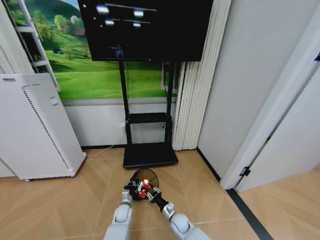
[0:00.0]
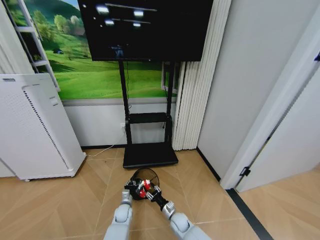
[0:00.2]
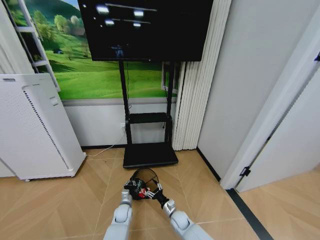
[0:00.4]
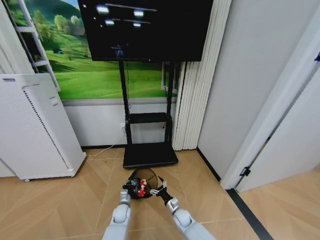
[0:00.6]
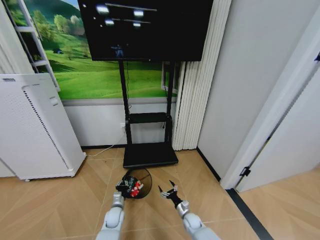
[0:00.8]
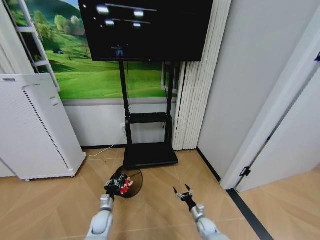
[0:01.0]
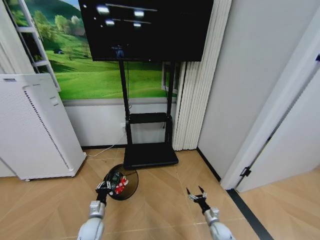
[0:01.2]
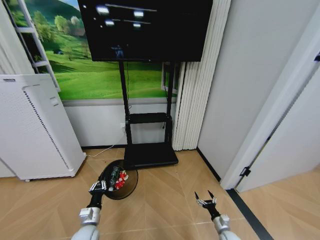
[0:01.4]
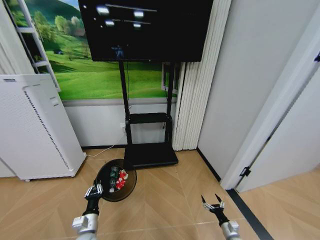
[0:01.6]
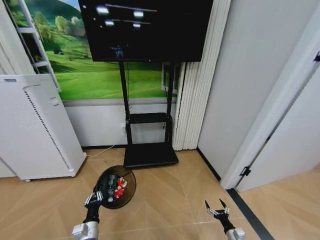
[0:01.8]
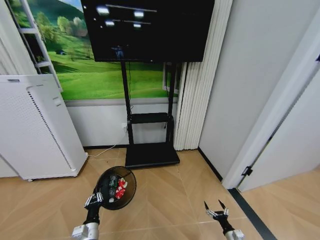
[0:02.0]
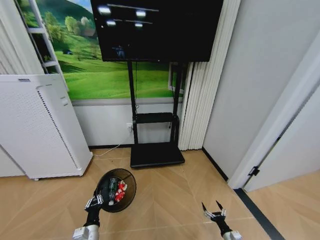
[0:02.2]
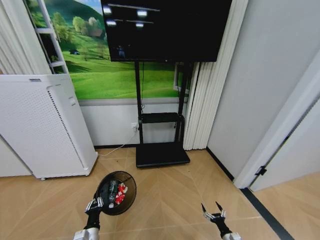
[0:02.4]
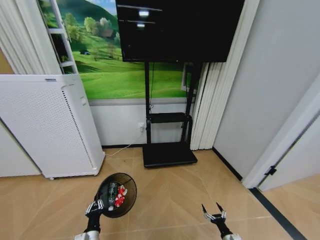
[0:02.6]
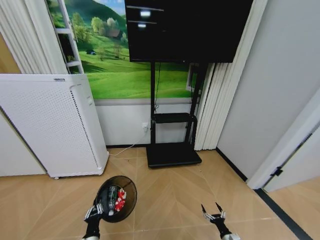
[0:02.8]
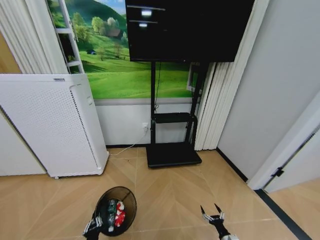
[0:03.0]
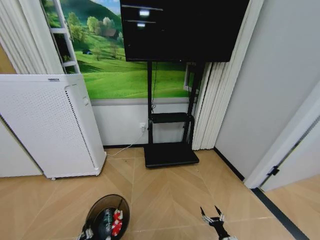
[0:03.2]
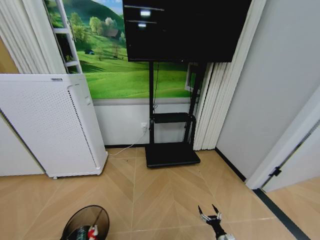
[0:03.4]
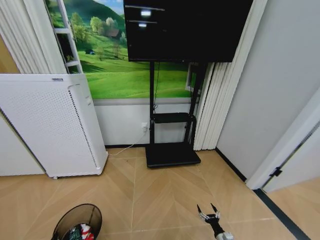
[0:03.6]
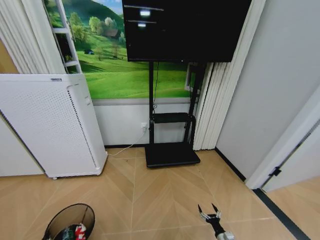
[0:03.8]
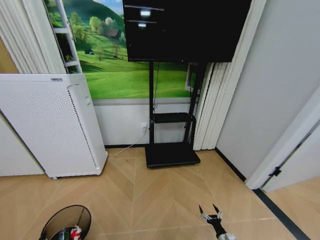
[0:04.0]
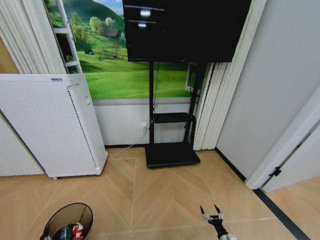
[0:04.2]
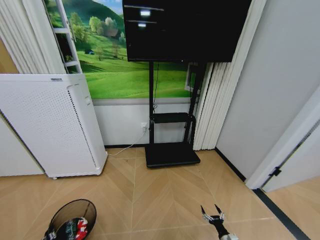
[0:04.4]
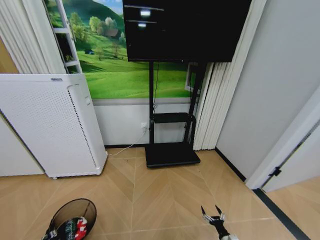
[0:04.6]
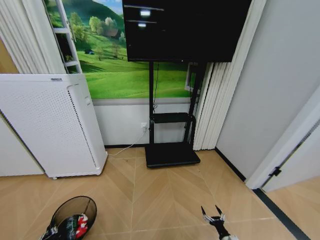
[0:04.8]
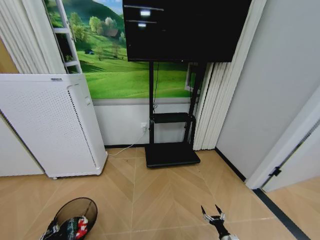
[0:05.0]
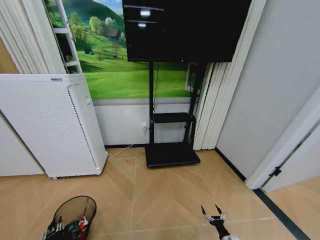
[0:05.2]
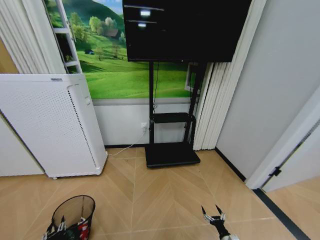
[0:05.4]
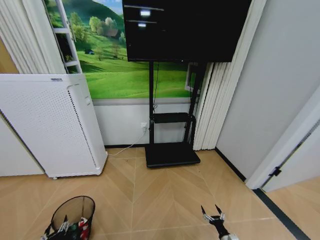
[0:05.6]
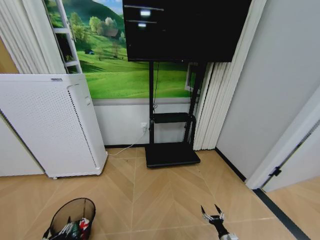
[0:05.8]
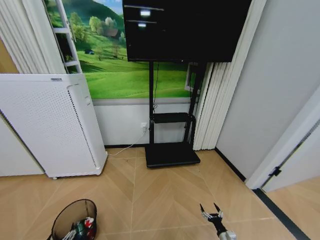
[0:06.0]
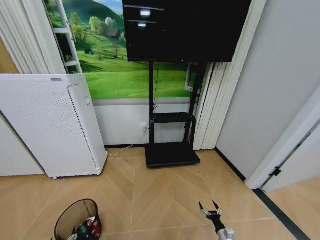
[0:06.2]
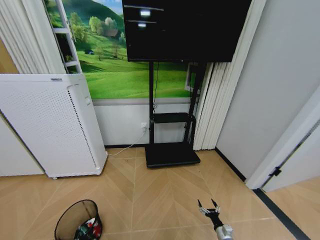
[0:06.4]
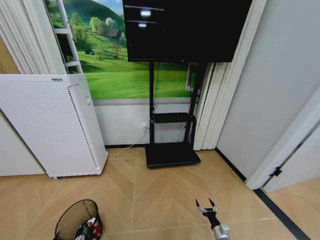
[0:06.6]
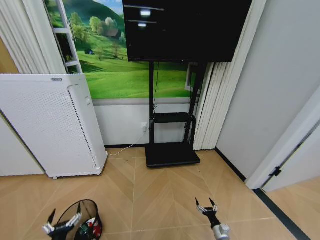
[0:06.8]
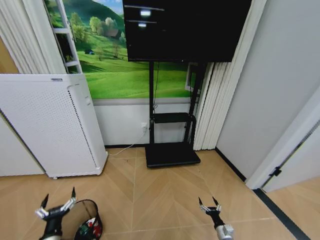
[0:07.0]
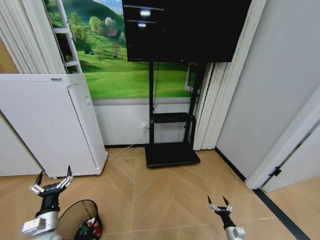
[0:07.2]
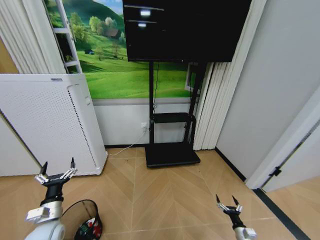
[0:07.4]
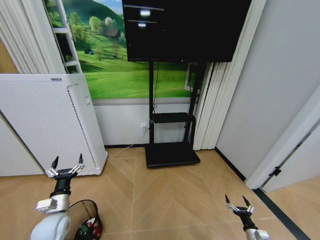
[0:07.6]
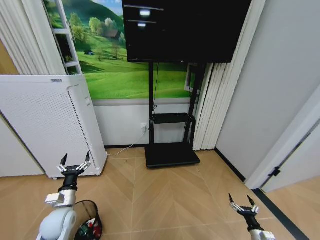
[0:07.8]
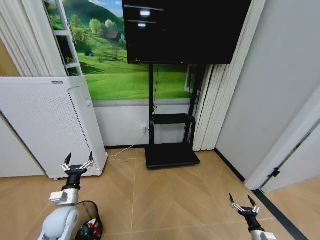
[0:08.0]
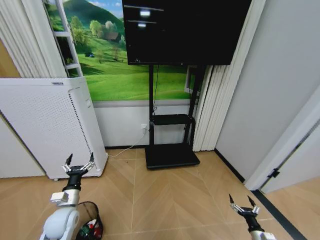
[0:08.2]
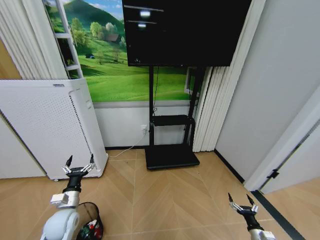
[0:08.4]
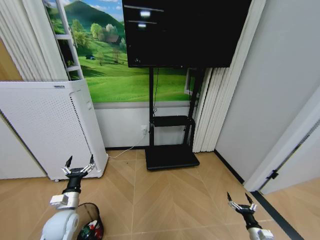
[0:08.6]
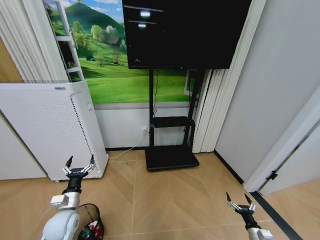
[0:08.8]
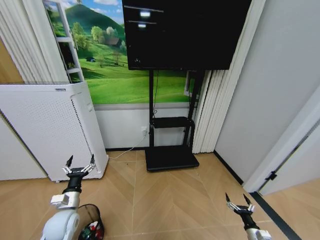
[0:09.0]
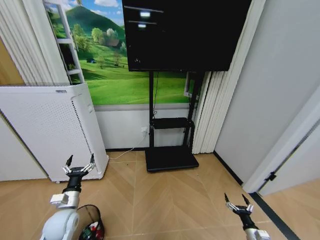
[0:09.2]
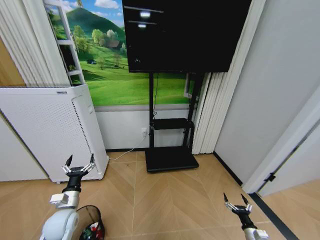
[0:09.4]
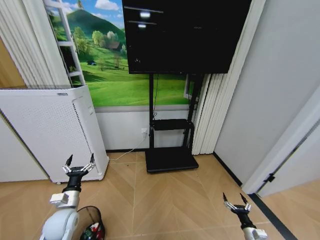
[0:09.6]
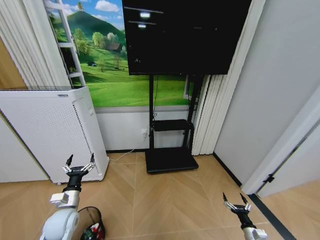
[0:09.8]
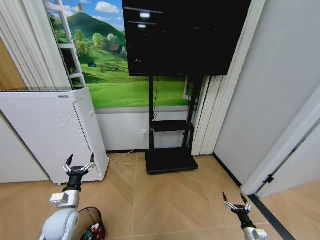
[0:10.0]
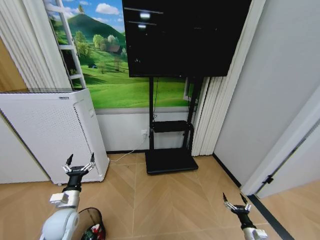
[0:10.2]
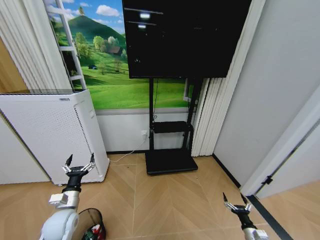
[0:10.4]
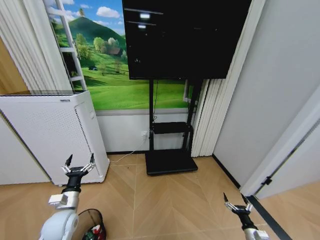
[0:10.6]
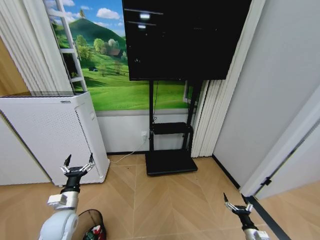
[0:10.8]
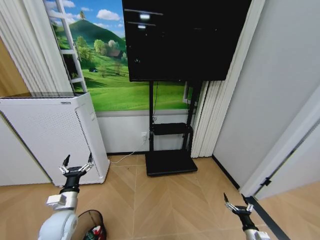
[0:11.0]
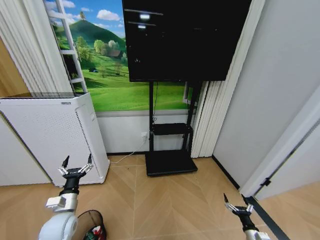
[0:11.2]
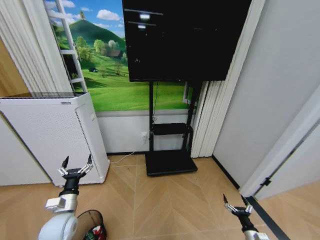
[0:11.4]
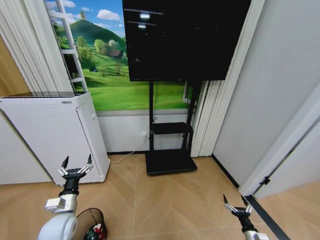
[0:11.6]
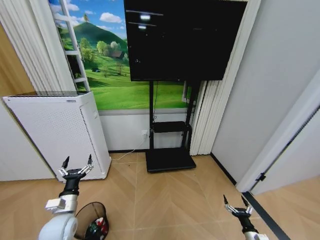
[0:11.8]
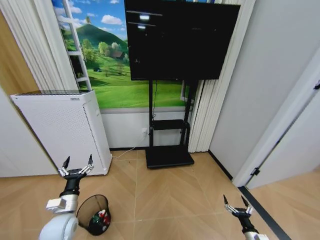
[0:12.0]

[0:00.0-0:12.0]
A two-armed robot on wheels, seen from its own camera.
Task of the whole recording: Pick up the trash bin and place the garbage on the floor into it.
0:00.0 to 0:01.6: The left gripper shifts roughly 20 cm backward, upward and to the left. The right gripper is displaced to the right by about 30 cm, and opens its fingers.
0:01.6 to 0:03.0: The left gripper moves backward and downward, about 15 cm. Meanwhile the right gripper goes roughly 5 cm backward.
0:03.0 to 0:04.4: The left gripper heads to the left, covering approximately 20 cm.
0:04.4 to 0:06.0: The left gripper opens its fingers.
0:06.0 to 0:07.6: The left gripper is displaced upward and forward by approximately 25 cm, while the right gripper goes some 10 cm to the right and upward.
0:07.6 to 0:09.0: The grippers move only a little.
0:09.0 to 0:10.4: The two grippers keep their place.

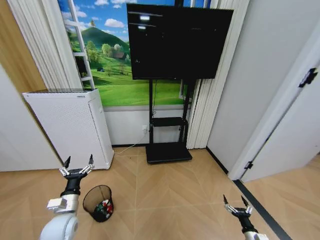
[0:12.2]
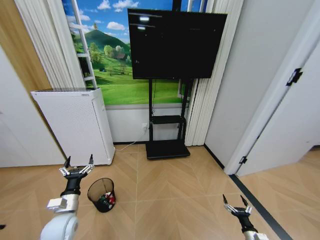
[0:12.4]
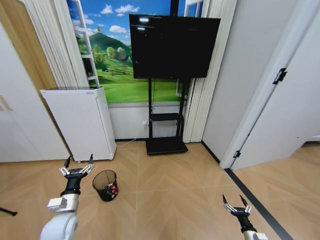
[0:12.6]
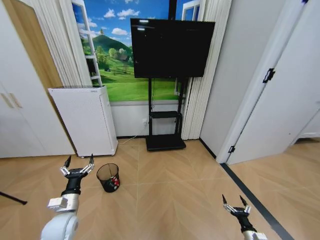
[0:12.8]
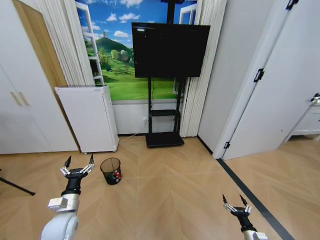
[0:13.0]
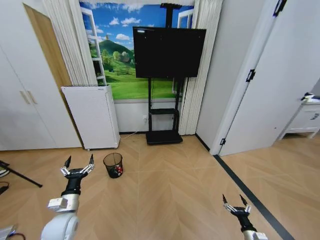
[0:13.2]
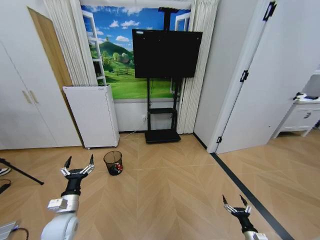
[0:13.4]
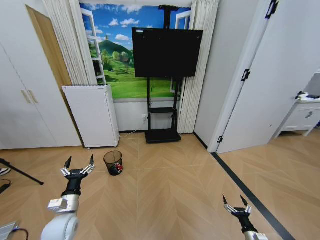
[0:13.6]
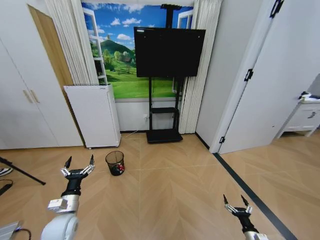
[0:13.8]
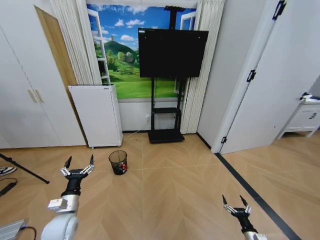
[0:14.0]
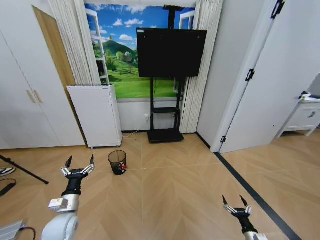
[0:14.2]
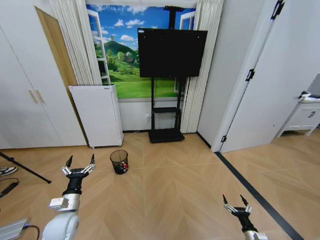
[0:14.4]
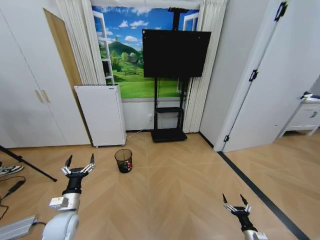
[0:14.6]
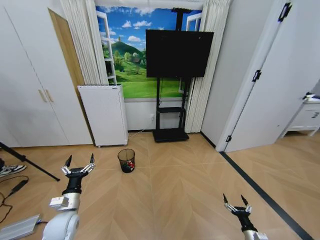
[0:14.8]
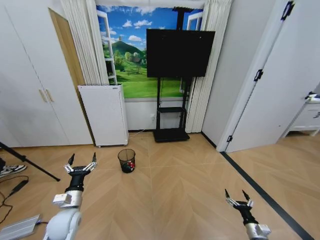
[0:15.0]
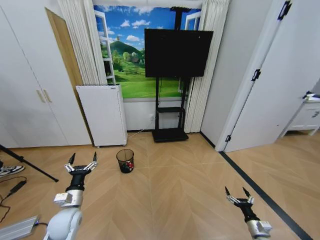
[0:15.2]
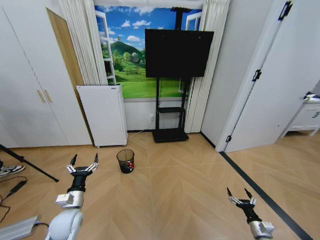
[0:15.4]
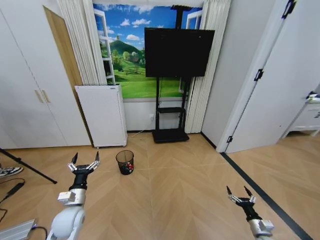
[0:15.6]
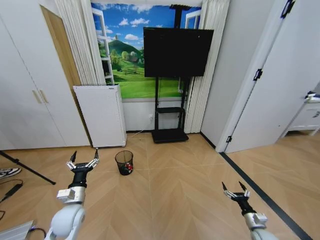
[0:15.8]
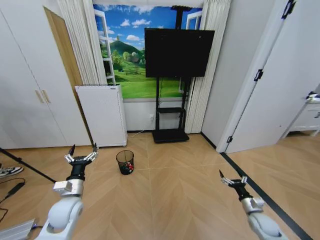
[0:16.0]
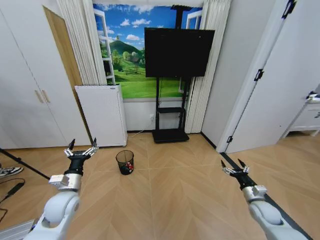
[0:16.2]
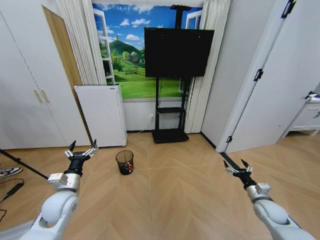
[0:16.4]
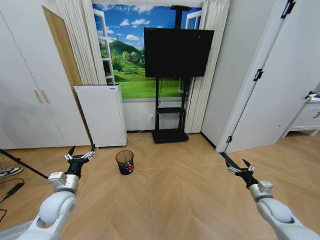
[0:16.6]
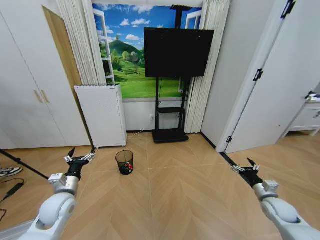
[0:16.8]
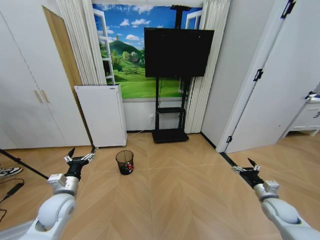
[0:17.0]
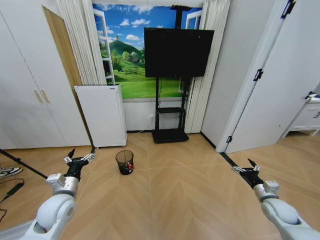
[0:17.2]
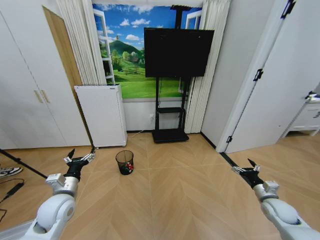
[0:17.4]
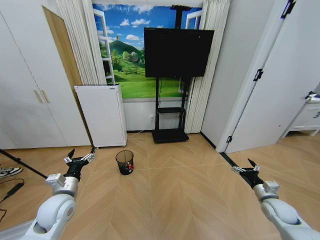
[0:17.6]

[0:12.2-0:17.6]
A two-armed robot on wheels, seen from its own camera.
Task of the whole recording: Pick up the trash bin and place the garbage on the floor into it.
0:15.0 to 0:16.2: The right gripper moves upward and forward, about 15 cm, while the left gripper moves upward, approximately 5 cm.
0:16.2 to 0:17.6: The right gripper moves some 5 cm.
